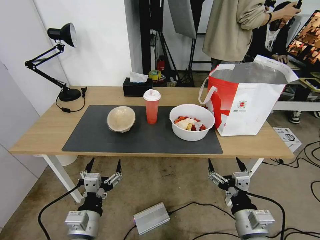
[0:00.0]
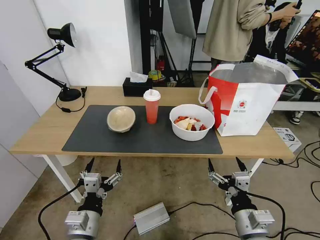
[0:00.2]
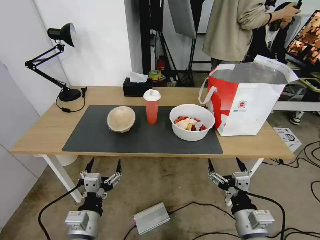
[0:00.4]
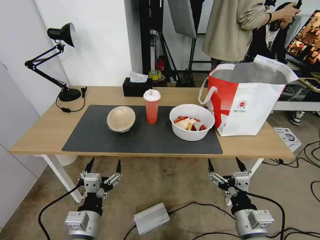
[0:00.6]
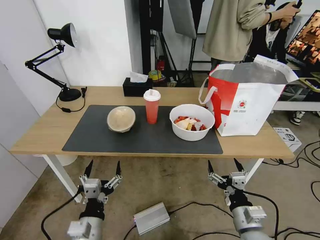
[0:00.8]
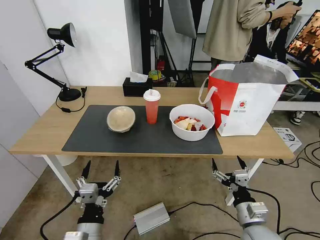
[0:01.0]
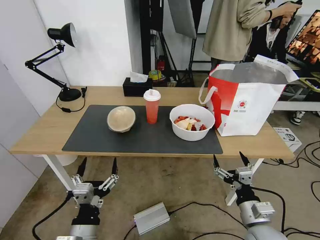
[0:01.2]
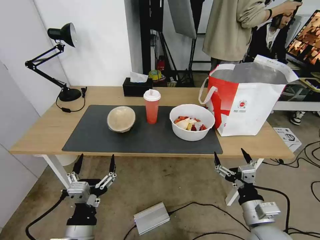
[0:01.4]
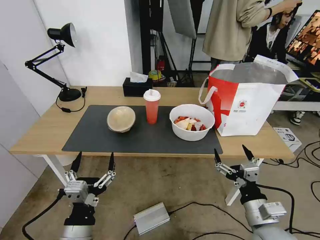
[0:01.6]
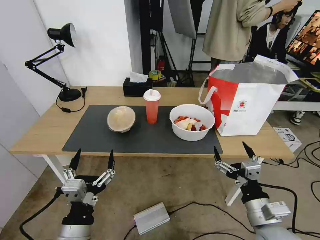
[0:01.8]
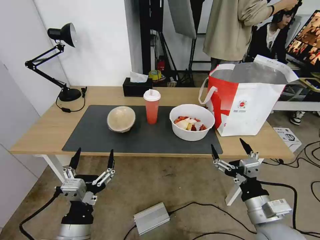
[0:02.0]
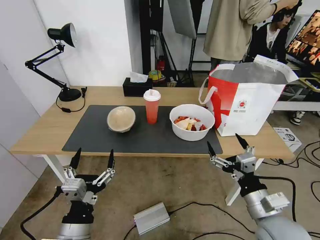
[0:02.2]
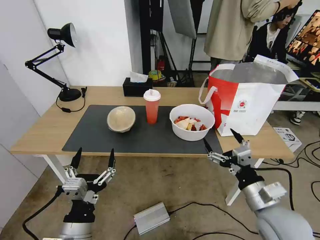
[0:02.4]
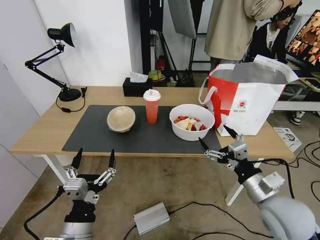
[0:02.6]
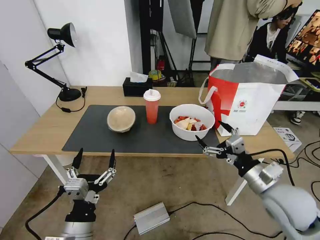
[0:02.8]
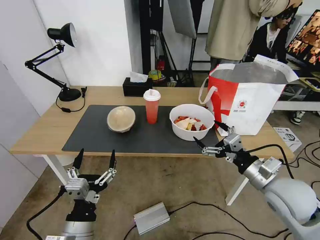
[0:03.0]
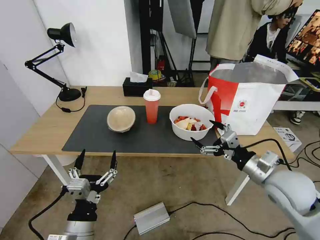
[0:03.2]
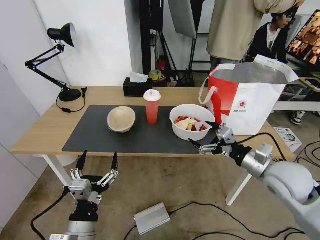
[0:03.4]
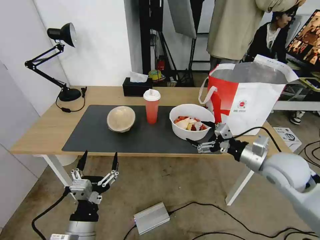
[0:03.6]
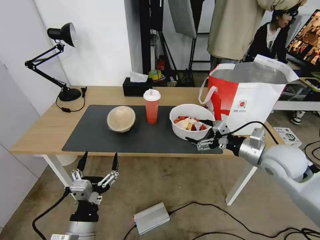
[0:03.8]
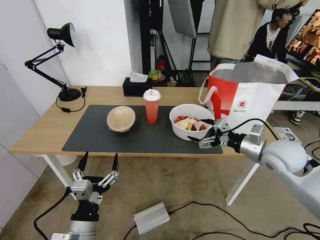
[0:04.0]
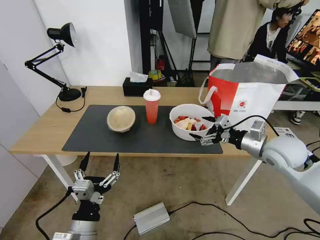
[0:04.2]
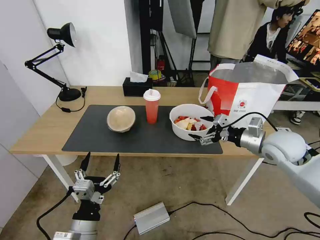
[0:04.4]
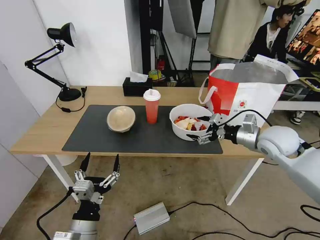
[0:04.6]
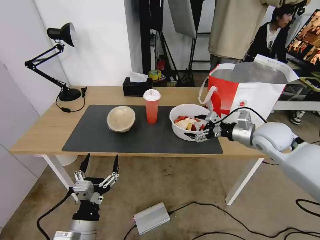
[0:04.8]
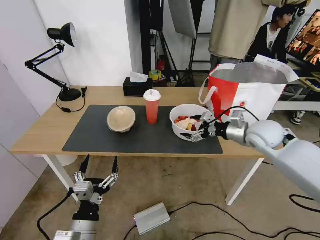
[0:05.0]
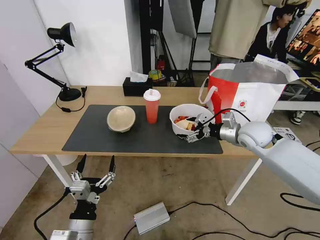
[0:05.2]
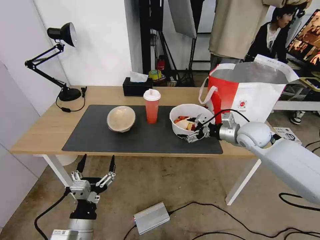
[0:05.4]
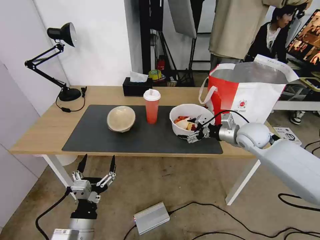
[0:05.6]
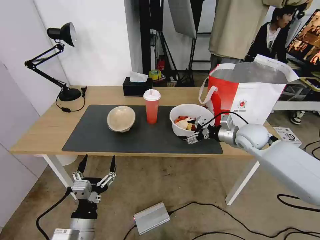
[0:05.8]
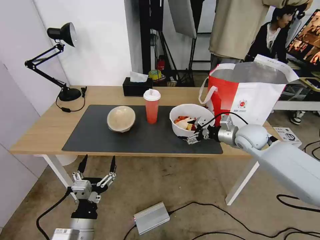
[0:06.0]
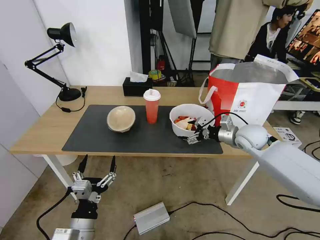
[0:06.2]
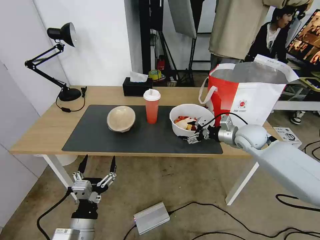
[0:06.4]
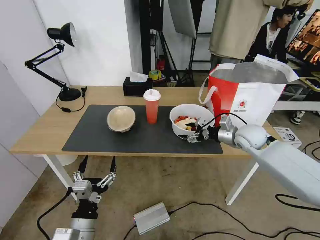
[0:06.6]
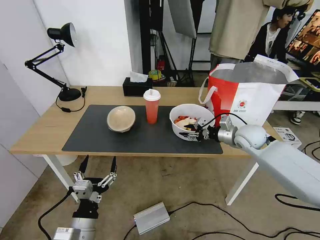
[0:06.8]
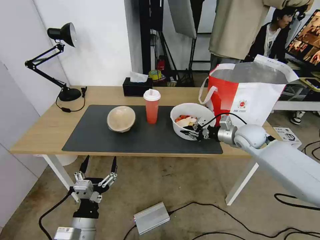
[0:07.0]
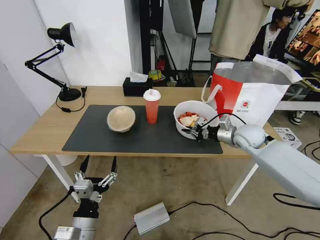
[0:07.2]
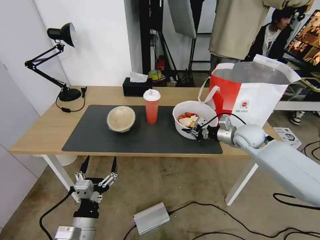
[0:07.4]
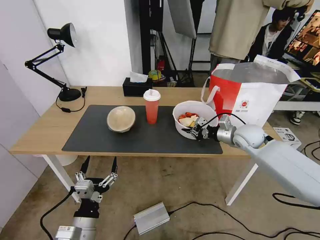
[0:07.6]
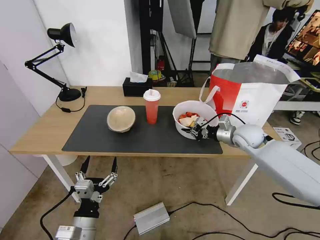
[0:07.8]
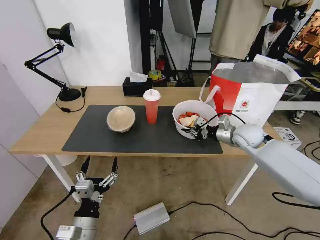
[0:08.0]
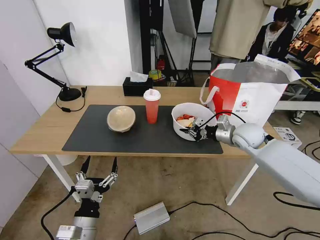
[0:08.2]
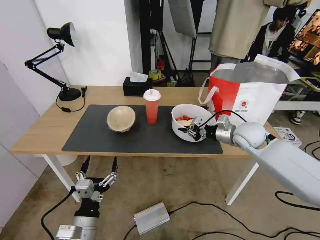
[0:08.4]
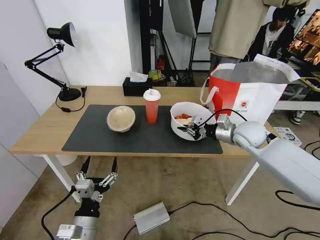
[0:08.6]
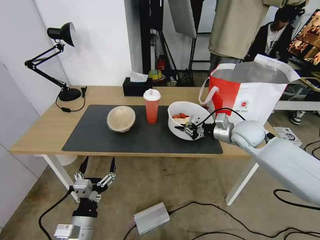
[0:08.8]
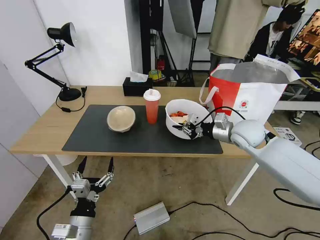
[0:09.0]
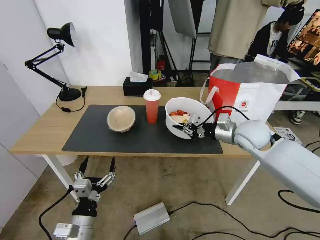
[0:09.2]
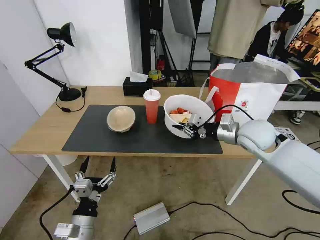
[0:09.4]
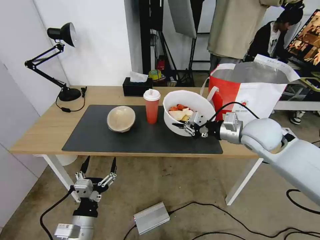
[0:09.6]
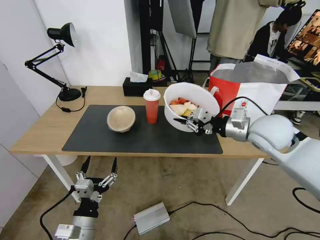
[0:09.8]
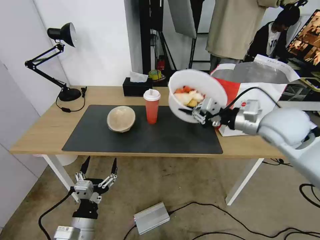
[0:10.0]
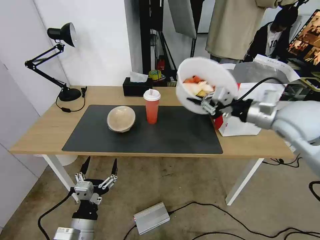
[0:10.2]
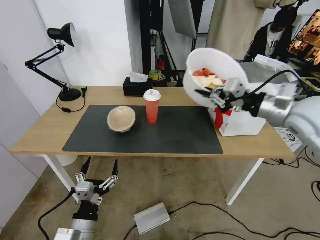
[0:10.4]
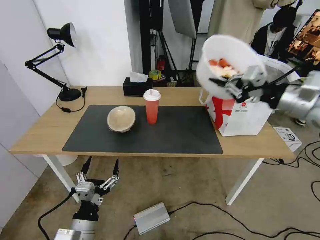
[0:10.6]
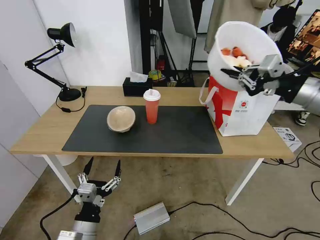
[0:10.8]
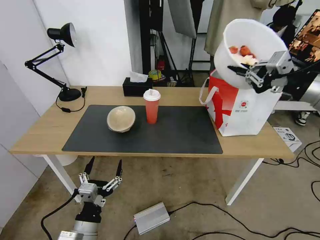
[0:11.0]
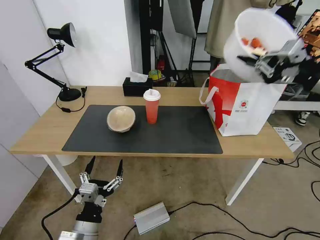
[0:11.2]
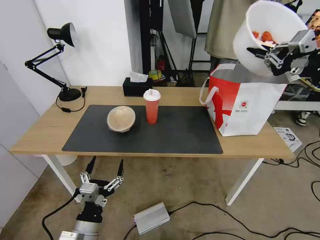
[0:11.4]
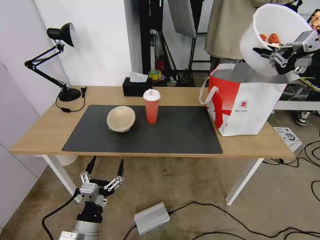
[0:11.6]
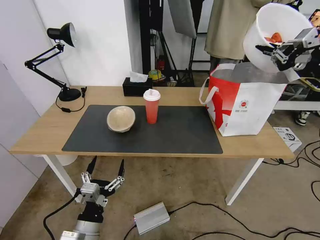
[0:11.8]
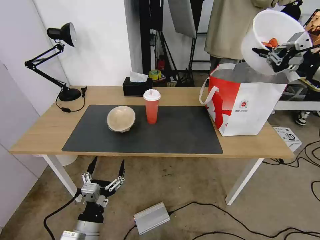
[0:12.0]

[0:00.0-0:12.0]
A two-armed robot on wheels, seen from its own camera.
Task of the whole recording: Pick up the trash from the table and place it into the takeout bag.
0:01.6 to 0:03.0: The right gripper heads forward and upward, covering some 10 cm.
0:03.0 to 0:04.4: The right gripper moves forward, approximately 15 cm.
0:04.4 to 0:06.0: The right gripper is displaced forward by some 10 cm.
0:06.0 to 0:07.6: The right gripper closes up.
0:07.6 to 0:09.0: The right gripper ends up about 5 cm from where it was.
0:09.0 to 0:10.4: The right gripper is displaced upward and backward by roughly 15 cm.
0:10.4 to 0:12.0: The right gripper is displaced to the right and upward by about 15 cm.

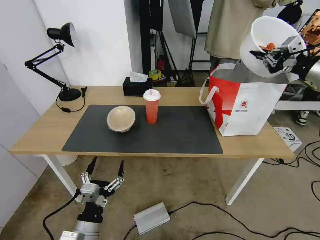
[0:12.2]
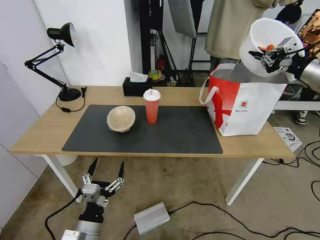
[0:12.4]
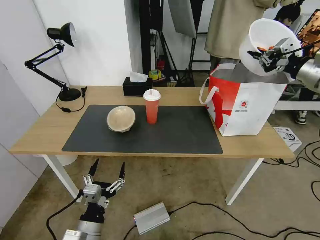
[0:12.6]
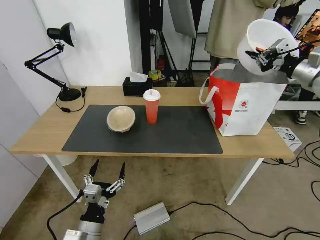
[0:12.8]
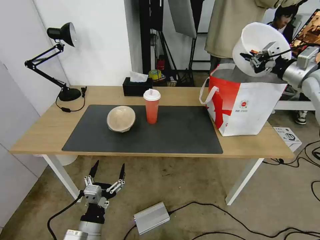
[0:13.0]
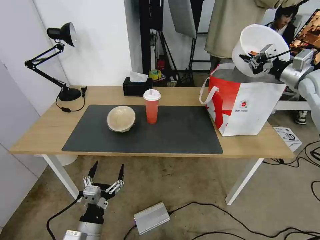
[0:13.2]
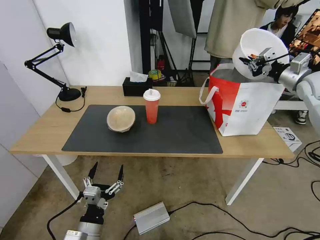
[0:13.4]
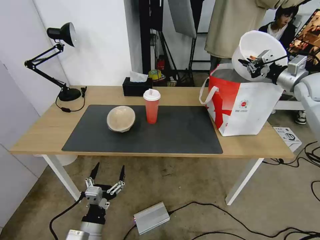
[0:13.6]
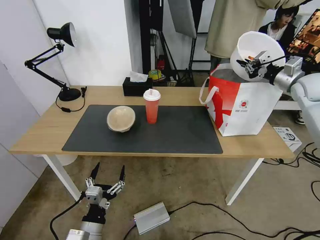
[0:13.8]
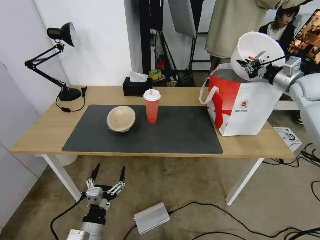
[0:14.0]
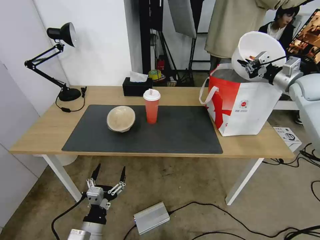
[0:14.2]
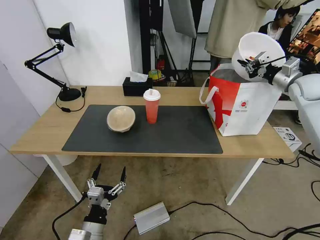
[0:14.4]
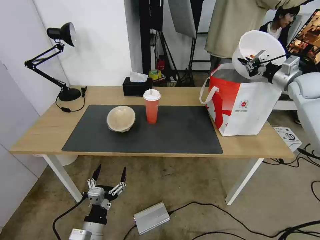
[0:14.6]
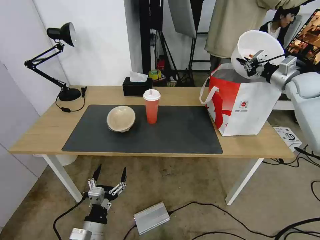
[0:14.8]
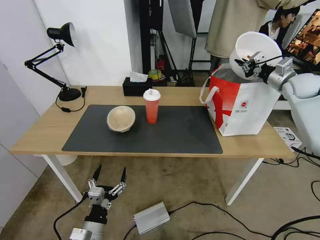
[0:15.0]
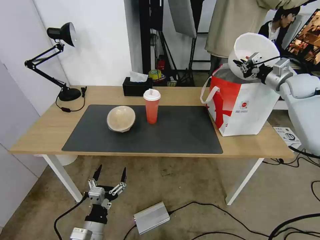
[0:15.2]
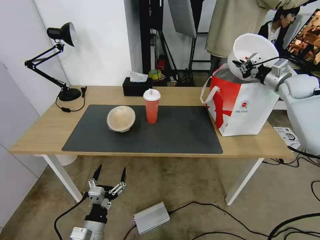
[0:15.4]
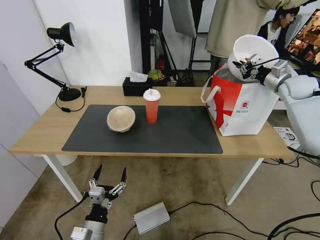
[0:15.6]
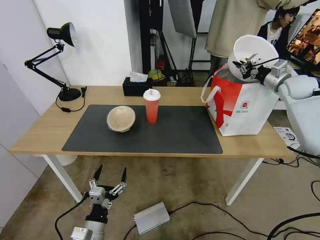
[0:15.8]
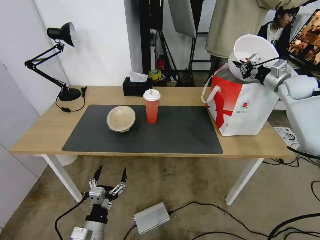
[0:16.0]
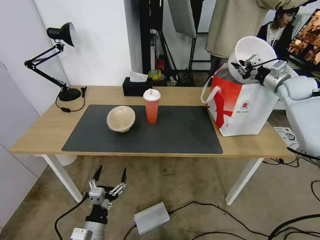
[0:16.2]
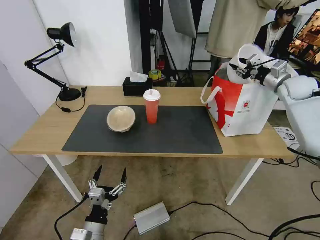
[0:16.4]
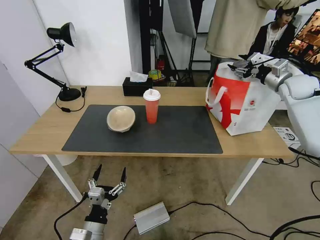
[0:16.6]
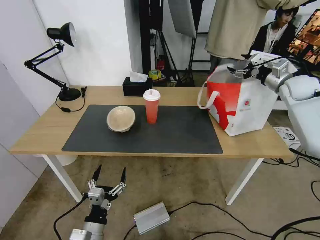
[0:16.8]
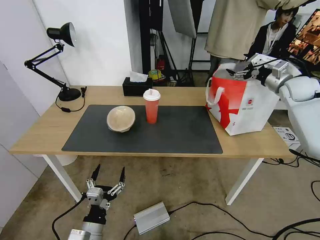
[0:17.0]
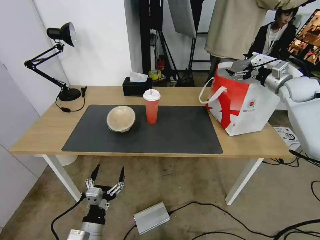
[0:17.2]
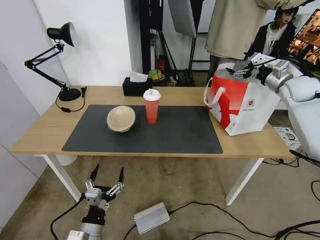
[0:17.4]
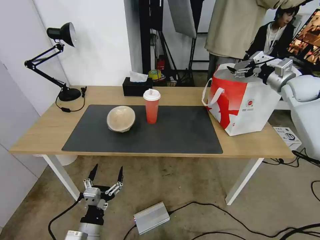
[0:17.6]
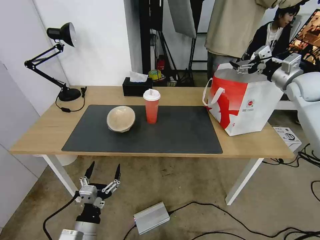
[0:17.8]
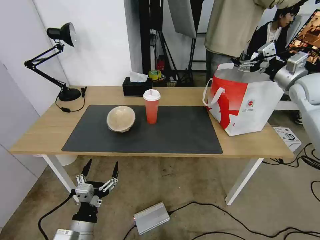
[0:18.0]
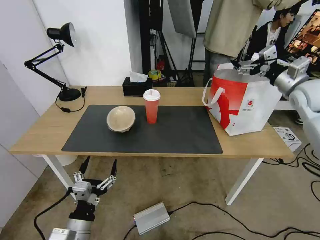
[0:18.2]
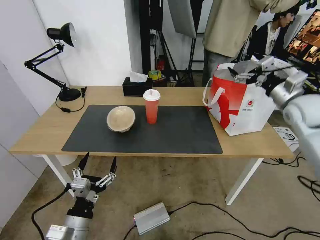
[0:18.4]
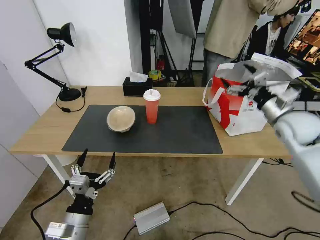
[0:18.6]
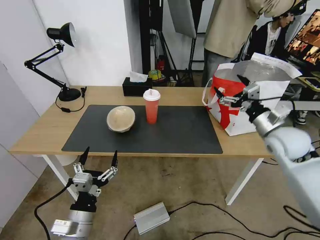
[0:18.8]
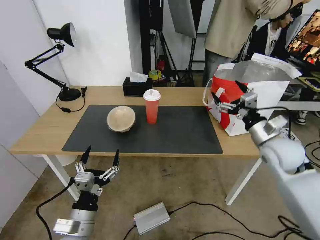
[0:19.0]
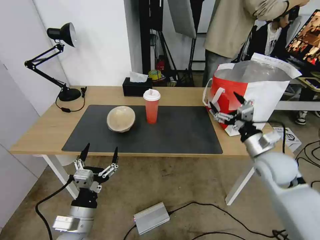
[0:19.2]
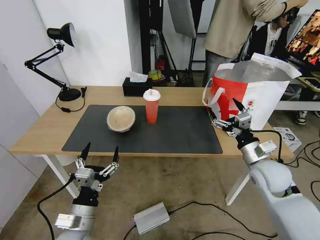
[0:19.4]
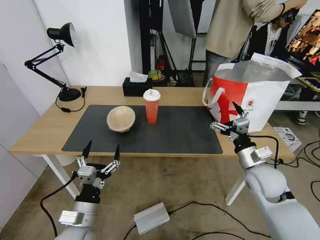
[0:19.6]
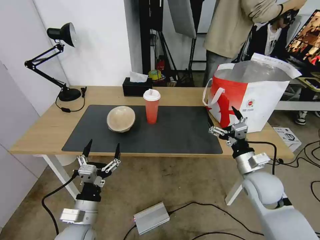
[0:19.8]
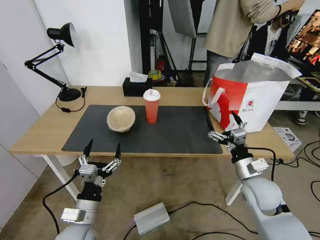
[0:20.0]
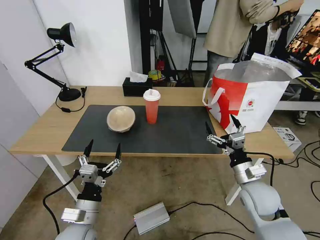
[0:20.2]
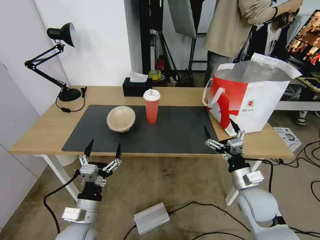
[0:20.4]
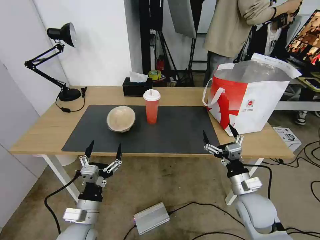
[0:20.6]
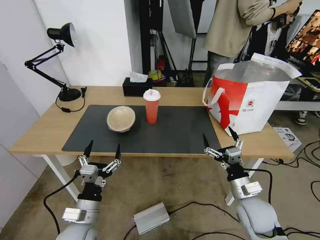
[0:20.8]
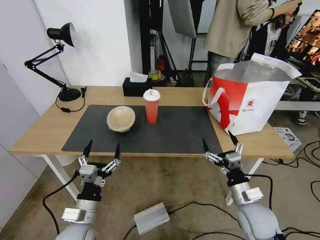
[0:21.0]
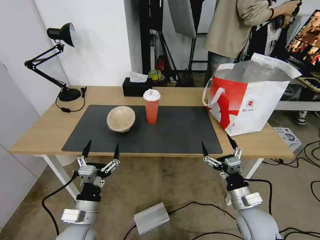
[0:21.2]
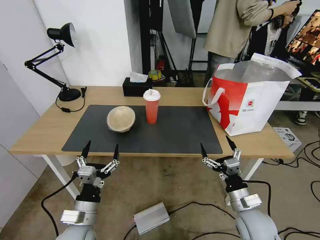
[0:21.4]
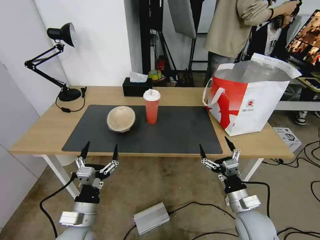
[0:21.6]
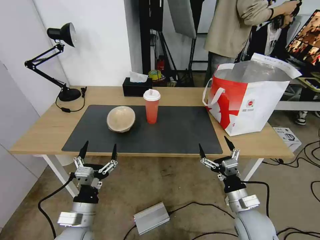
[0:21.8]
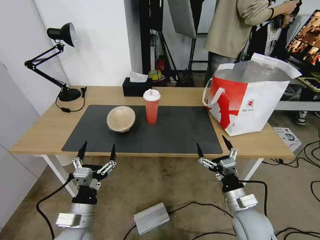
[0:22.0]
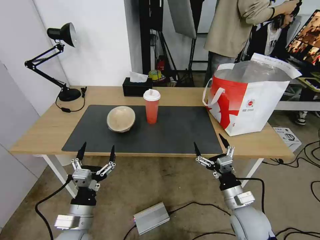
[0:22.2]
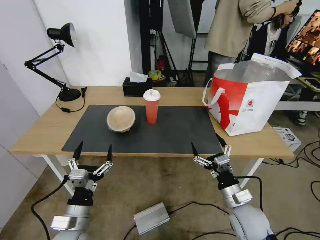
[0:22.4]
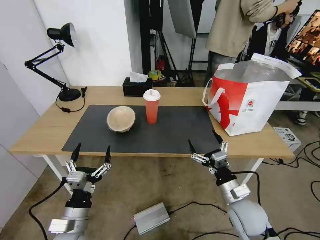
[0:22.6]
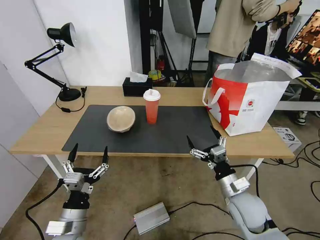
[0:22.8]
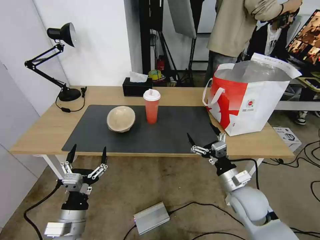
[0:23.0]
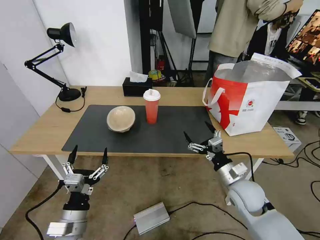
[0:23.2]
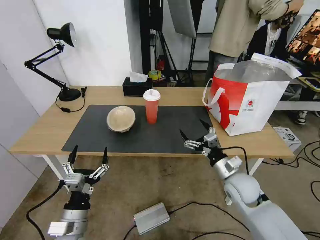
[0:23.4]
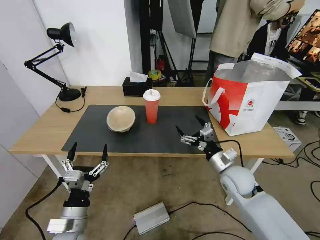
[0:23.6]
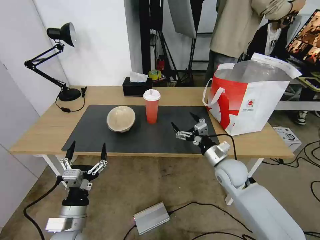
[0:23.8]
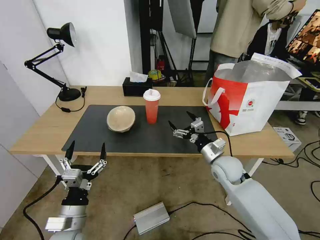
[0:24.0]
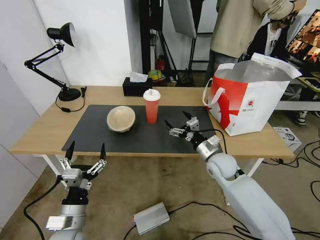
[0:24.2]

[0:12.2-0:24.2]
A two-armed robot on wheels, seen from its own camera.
Task of the whole recording: Pick up the trash from the table and place it into the takeout bag.
0:12.2 to 0:13.8: The right gripper moves forward and downward, some 10 cm.
0:13.8 to 0:15.2: The grippers move only a little.
0:15.2 to 0:16.6: The right gripper opens.
0:16.6 to 0:18.2: The left gripper goes approximately 5 cm upward, while the right gripper shifts approximately 10 cm backward, and opens up.
0:18.2 to 0:19.8: The right gripper heads downward, backward and to the left, covering about 30 cm. Meanwhile the left gripper shifts by some 5 cm.
0:19.8 to 0:21.2: The right gripper shifts some 10 cm backward and downward.
0:21.2 to 0:22.6: The grippers move only a little.
0:22.6 to 0:24.2: The right gripper travels forward by some 15 cm.
